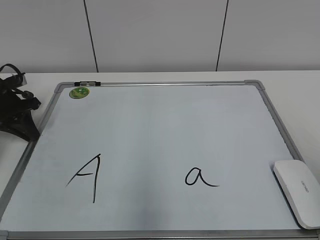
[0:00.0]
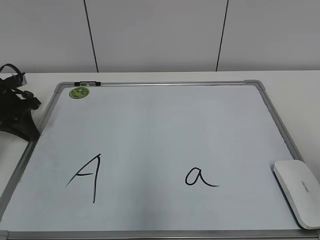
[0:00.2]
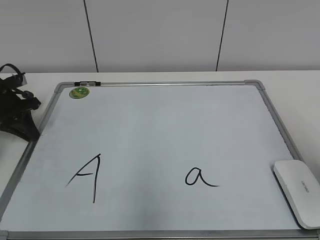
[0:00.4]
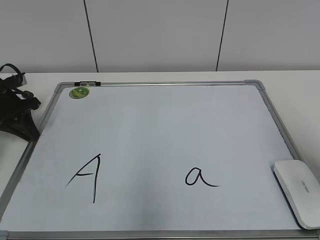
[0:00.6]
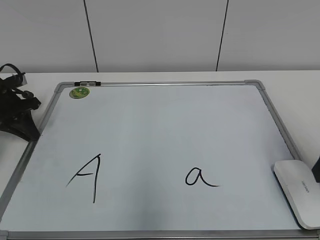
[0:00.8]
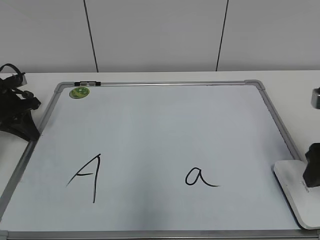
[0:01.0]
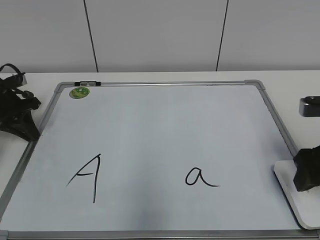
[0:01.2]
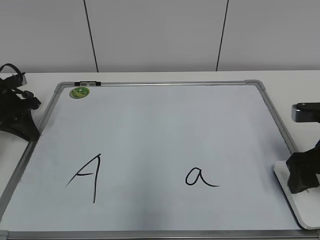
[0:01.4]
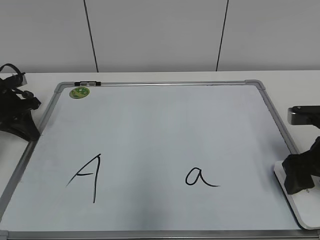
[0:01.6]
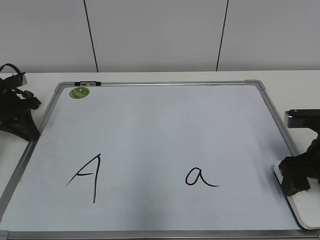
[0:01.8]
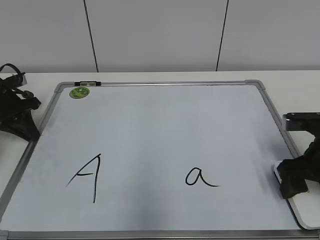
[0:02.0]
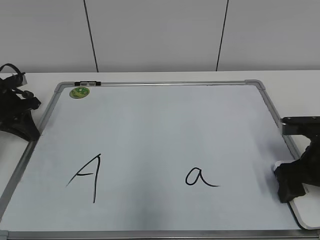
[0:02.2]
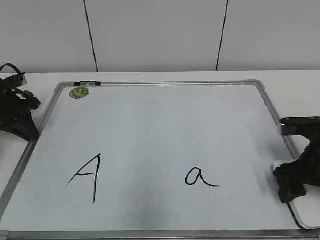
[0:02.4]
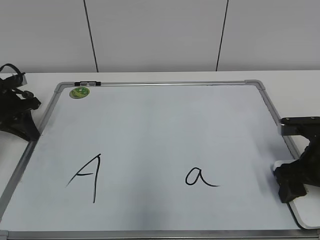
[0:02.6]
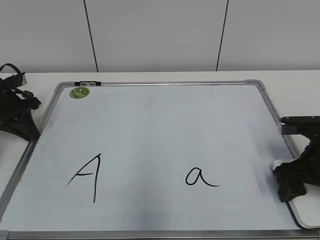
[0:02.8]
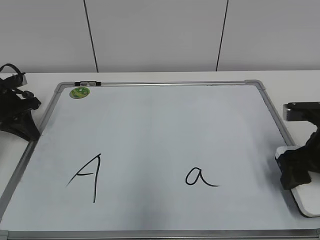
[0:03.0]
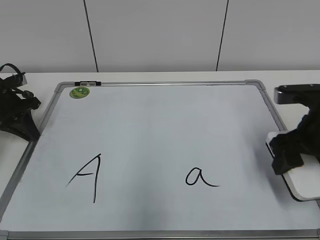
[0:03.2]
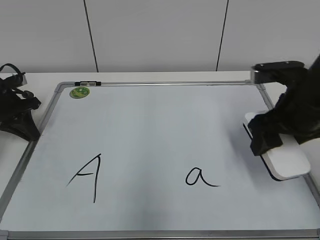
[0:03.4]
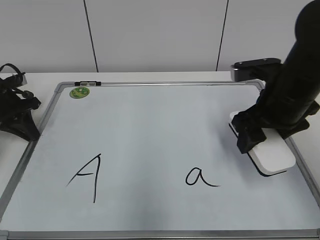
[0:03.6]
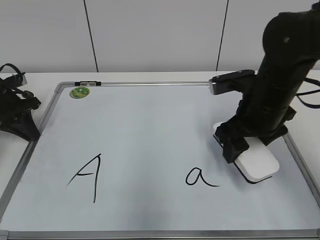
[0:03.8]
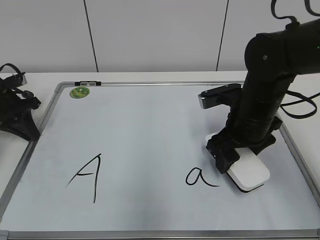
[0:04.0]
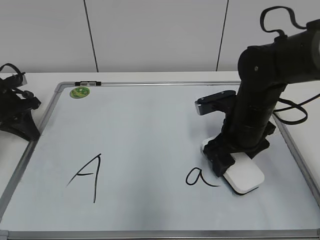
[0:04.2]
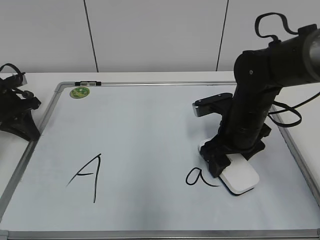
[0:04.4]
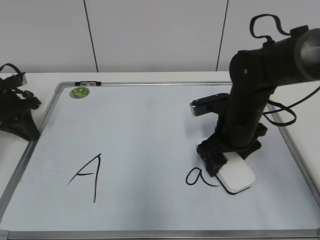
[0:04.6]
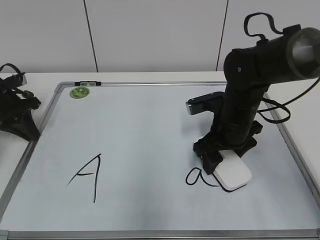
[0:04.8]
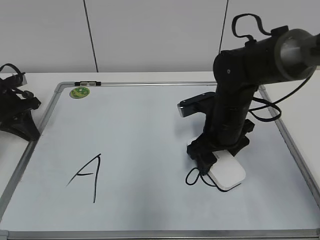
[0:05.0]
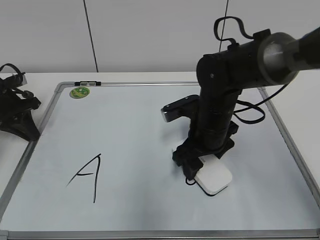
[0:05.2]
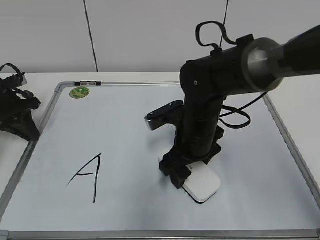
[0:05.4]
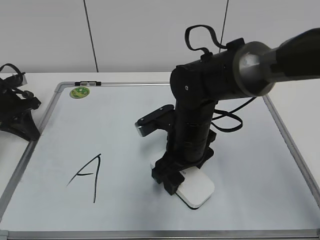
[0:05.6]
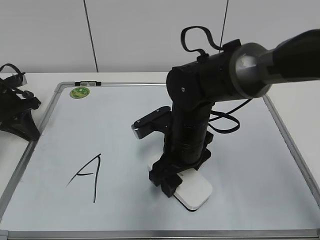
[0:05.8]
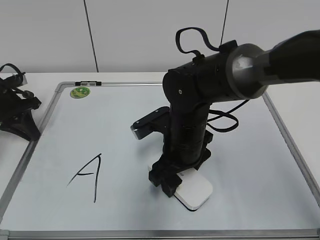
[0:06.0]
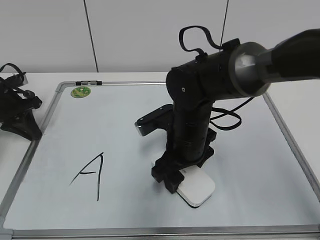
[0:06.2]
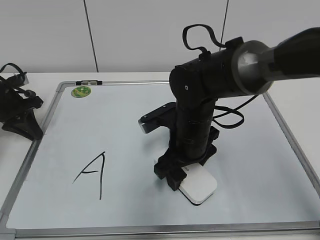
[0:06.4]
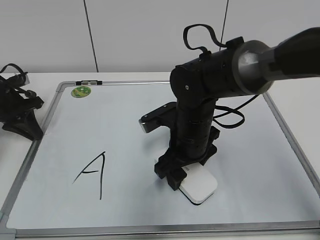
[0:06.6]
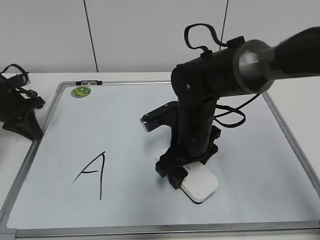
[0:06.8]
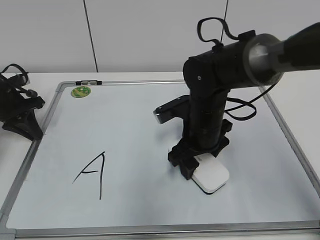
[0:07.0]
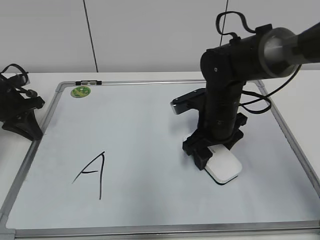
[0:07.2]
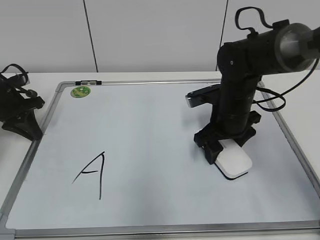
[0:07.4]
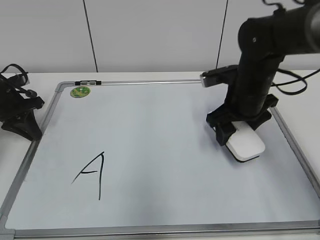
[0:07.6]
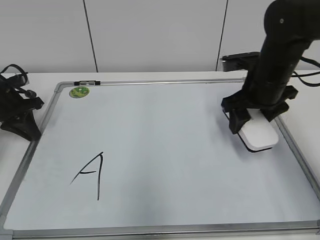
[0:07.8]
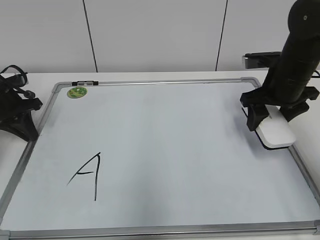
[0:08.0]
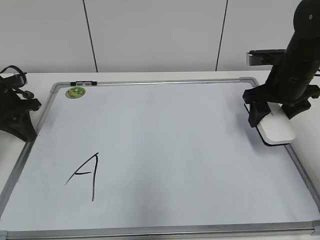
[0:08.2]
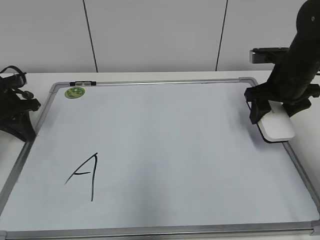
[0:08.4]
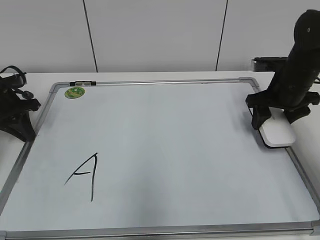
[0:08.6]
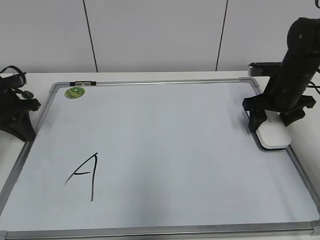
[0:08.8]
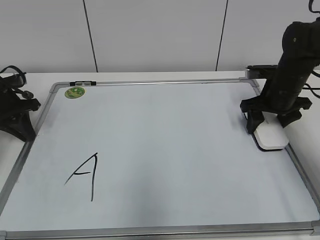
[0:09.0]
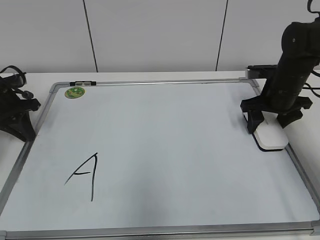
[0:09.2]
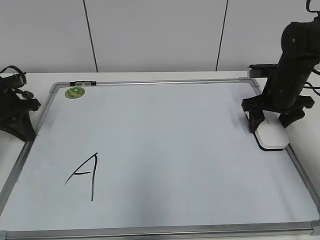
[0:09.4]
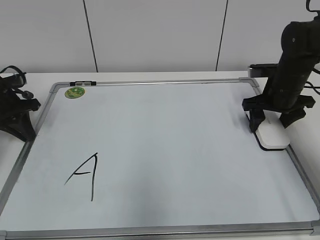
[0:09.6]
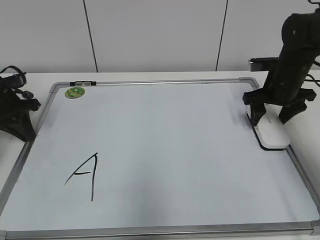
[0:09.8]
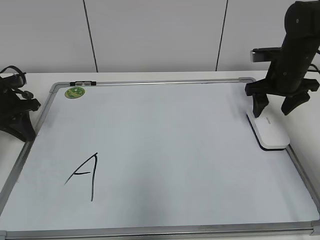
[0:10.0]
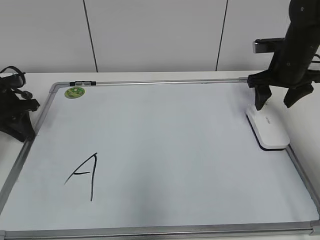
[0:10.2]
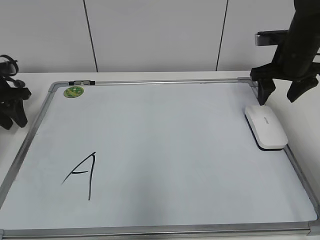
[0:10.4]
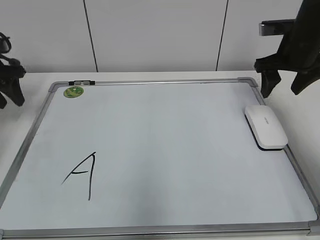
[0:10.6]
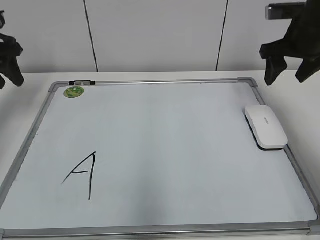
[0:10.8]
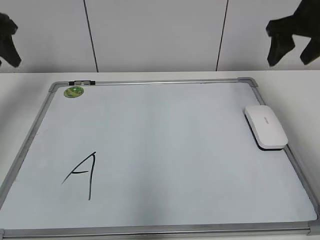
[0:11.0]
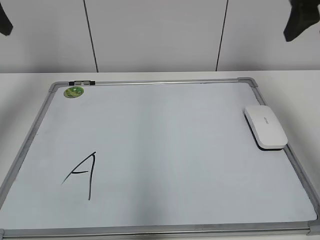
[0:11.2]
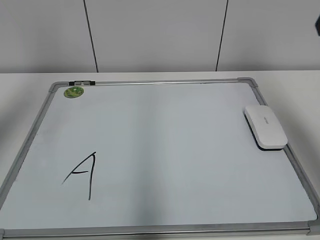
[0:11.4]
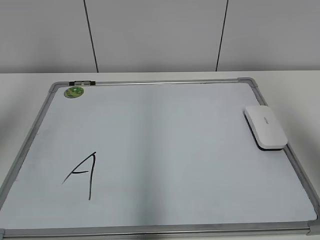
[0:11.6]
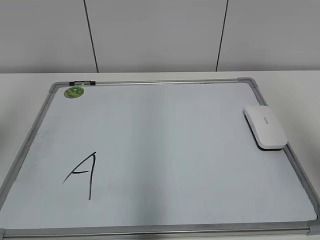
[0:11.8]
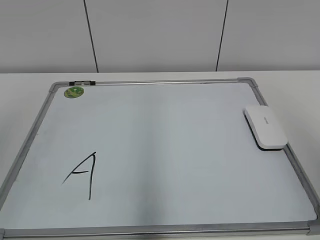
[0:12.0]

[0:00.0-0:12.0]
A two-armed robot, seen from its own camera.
Task of the whole recording: pick up the eraser on the blackboard and erase the letter "a".
Step, 0:00.0 to 0:02.4: Grab the eraser with your right hand.
Step, 0:02.6 to 0:07.2: Erase the letter a with your right hand.
Step, 0:07.4 to 0:09.4: Put down the eraser with your right hand.
0:00.0 to 0:01.6: The right gripper travels forward and downward by about 25 cm.
0:01.6 to 0:03.0: There are only small adjustments of the grippers.
0:03.0 to 0:04.4: The right gripper travels to the left and forward by roughly 15 cm.
0:04.4 to 0:06.0: The right gripper shifts roughly 10 cm to the left.
0:06.0 to 0:07.6: The right gripper is displaced to the right and forward by some 10 cm.
0:07.6 to 0:09.0: The right gripper shifts roughly 10 cm to the right.
0:09.0 to 0:10.4: The right gripper goes about 5 cm upward; the left gripper opens.
0:10.4 to 0:12.0: Both grippers travel together backward and upward, some 40 cm.

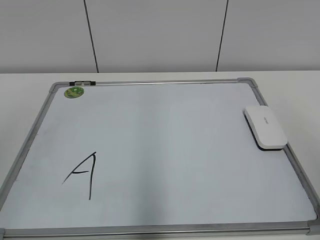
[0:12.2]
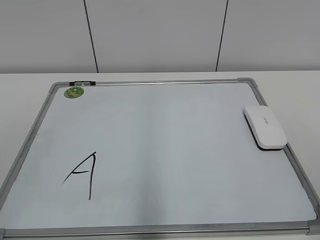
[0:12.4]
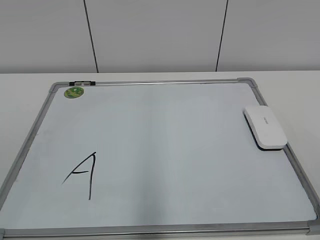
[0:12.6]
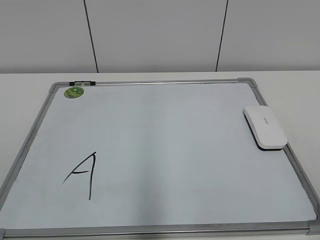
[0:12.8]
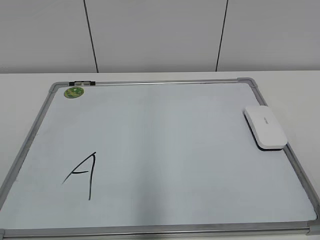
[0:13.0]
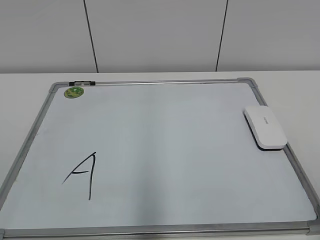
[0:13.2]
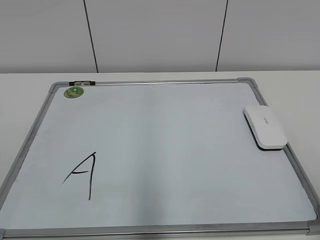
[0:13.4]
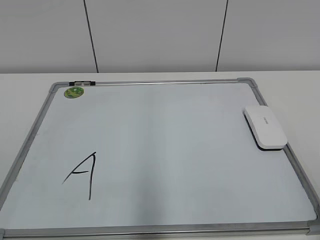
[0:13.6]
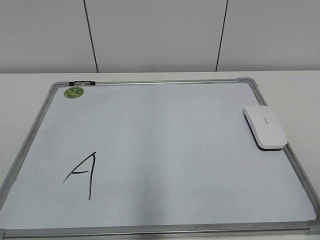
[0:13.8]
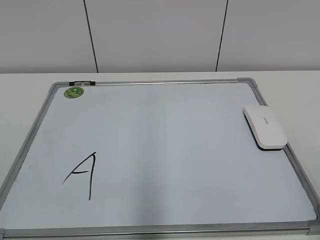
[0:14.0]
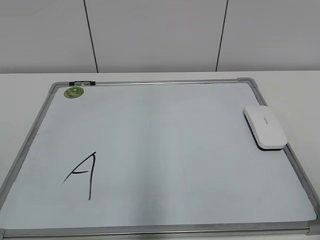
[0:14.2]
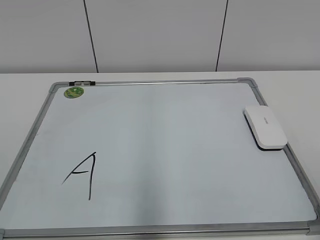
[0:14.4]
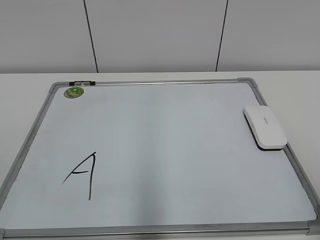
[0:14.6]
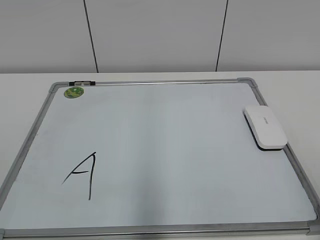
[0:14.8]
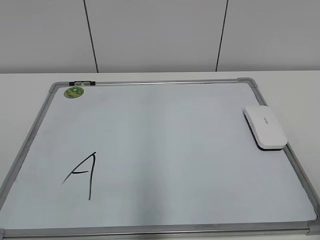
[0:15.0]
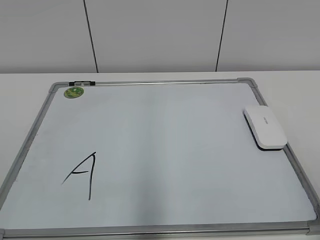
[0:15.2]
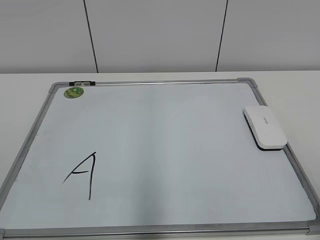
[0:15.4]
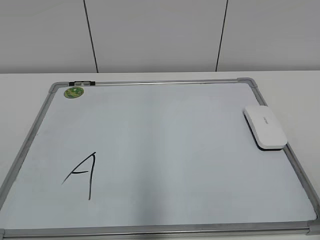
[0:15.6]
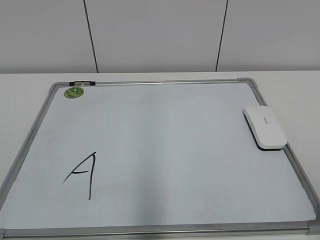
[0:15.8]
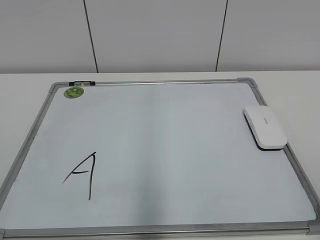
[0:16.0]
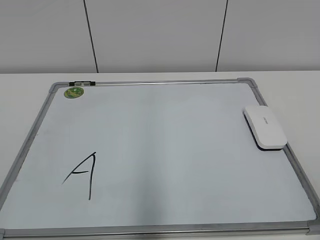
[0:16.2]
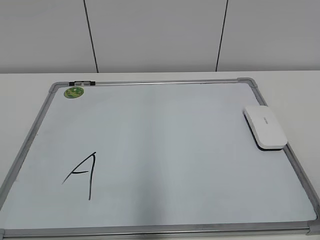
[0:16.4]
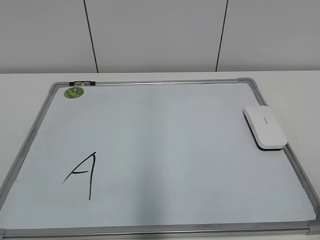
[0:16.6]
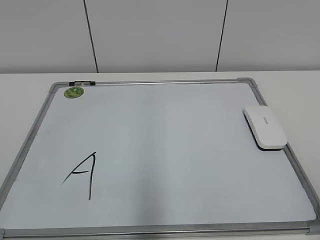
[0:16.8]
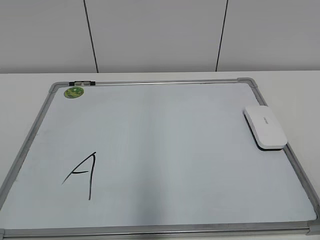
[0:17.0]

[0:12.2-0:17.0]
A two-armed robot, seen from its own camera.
Task of the whole recording: pick up the eraser on the blackboard and erase the letter "a".
0:13.8 to 0:15.4: Neither gripper changes place.

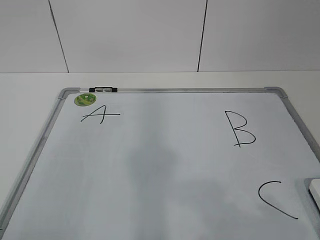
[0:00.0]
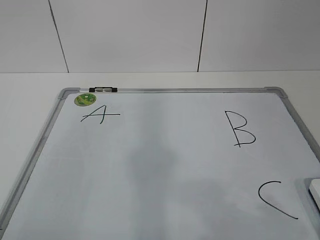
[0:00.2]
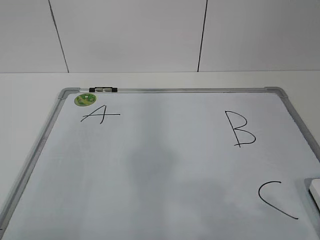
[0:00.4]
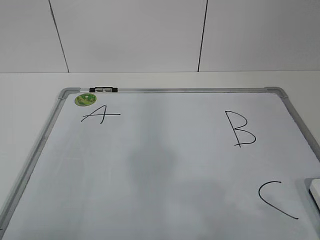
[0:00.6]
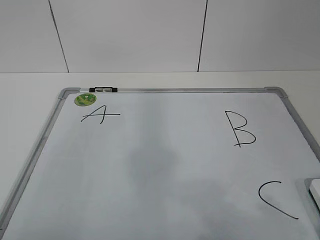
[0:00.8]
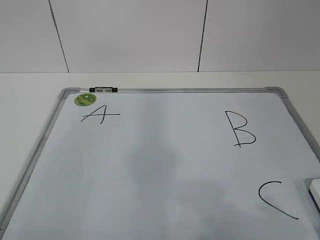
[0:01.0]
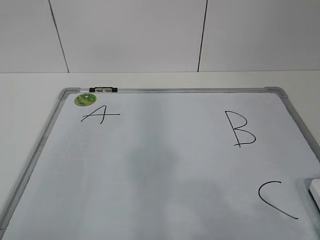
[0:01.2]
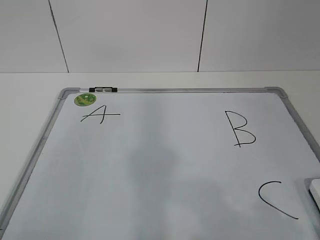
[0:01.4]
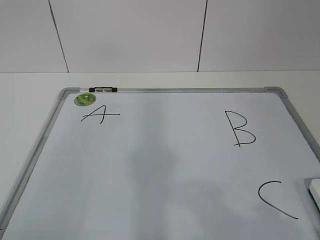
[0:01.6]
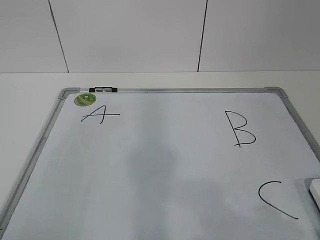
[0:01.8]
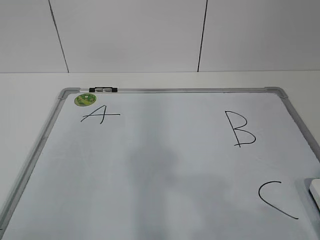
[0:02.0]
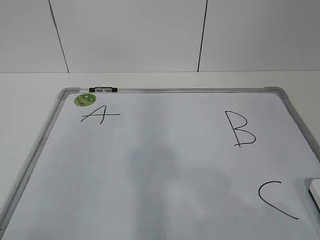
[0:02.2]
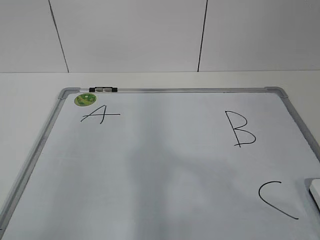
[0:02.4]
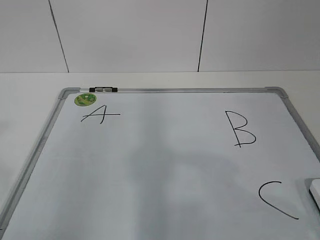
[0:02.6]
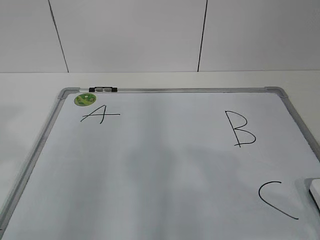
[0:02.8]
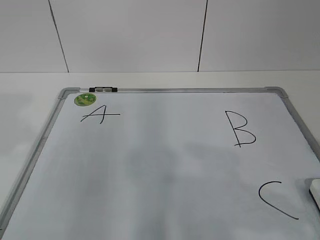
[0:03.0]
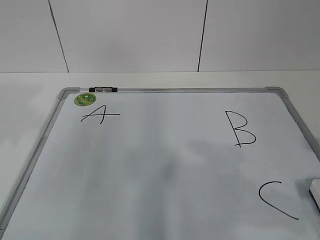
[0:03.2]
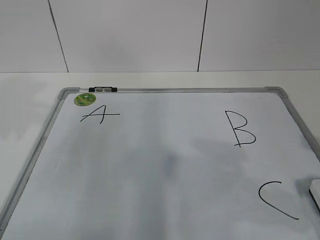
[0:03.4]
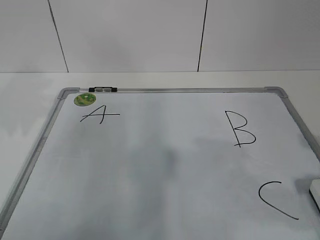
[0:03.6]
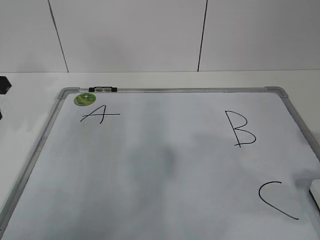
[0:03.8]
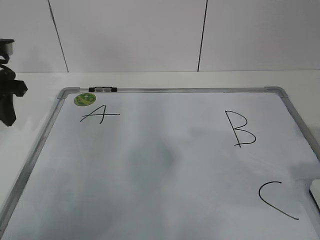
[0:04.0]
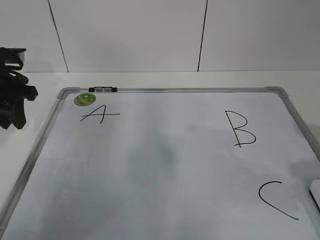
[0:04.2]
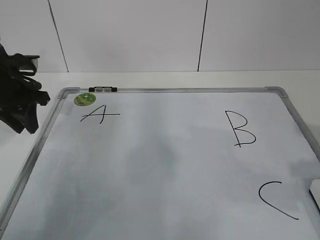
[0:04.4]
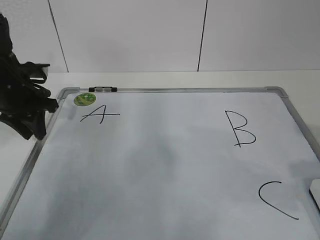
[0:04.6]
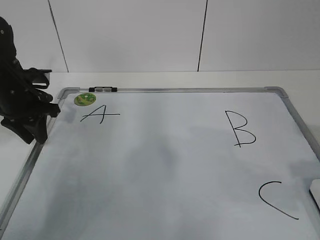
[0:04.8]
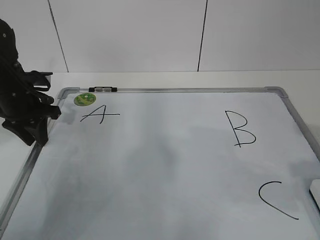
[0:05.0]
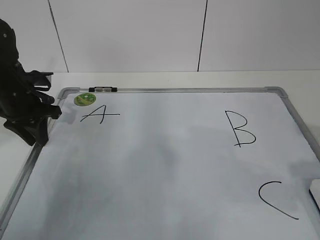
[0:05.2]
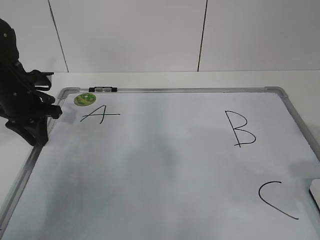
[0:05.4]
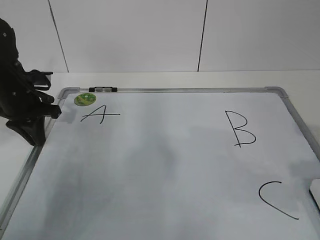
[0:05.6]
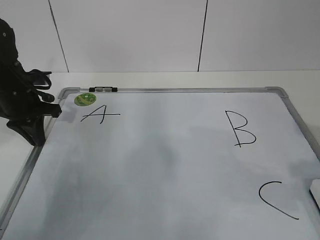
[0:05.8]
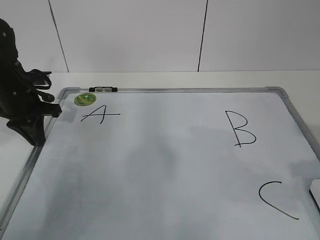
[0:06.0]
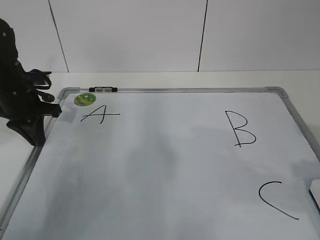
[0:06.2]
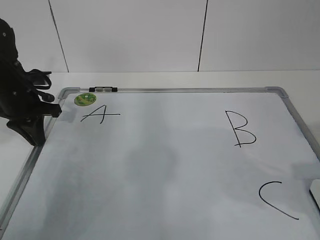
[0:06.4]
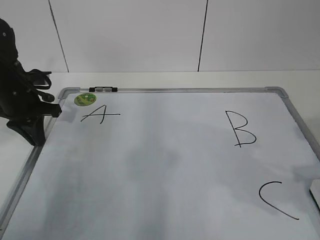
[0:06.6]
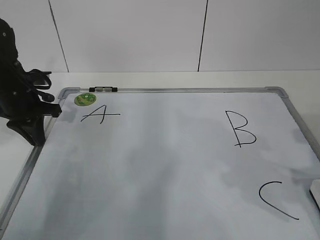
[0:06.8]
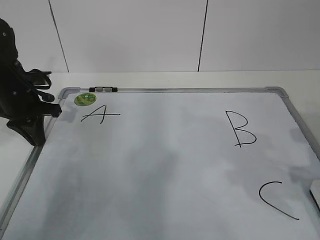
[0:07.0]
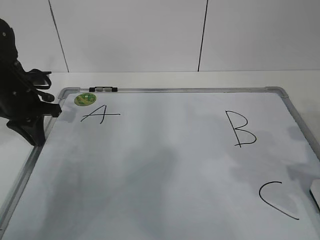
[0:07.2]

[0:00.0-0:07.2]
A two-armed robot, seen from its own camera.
Task of the whole recording: pick up the eraser on the blackboard and erase the letter "B".
Step, 0:00.0 to 0:04.6: Hold the drawing board steady with your left hand.
0:02.8 to 0:04.4: The left gripper heads forward and downward, covering some 30 cm, while the right gripper heads forward, covering about 5 cm.
0:04.4 to 0:05.8: The left gripper closes.
